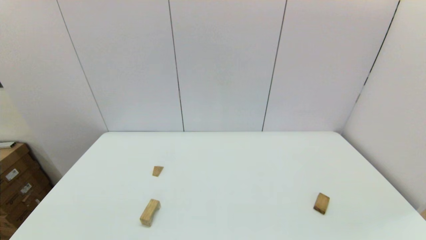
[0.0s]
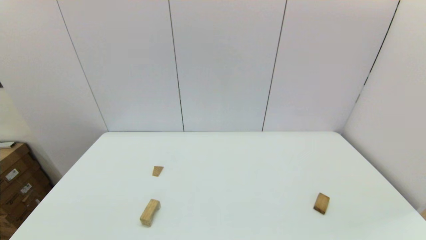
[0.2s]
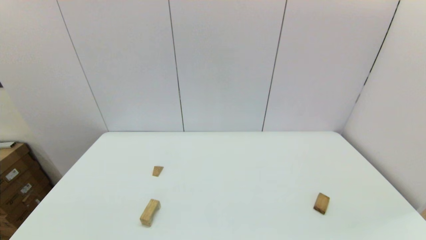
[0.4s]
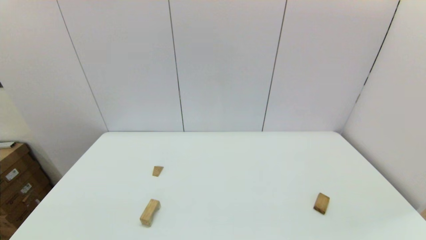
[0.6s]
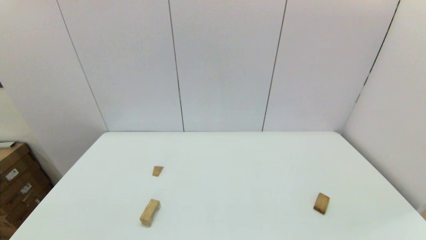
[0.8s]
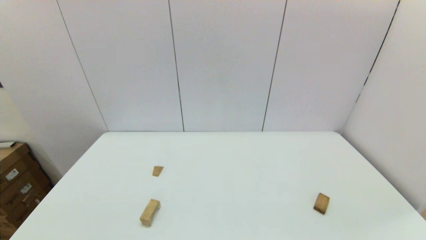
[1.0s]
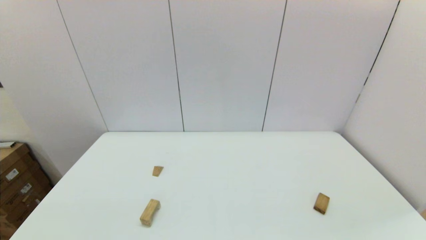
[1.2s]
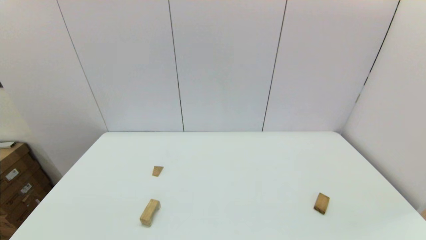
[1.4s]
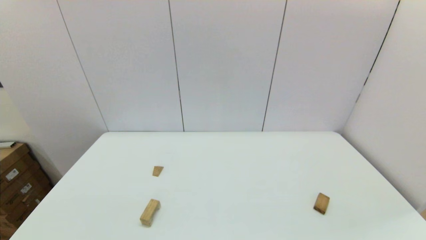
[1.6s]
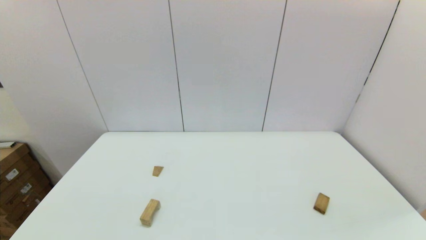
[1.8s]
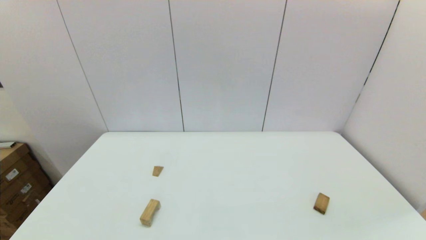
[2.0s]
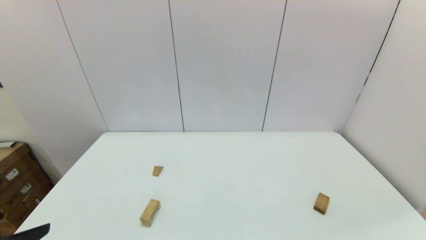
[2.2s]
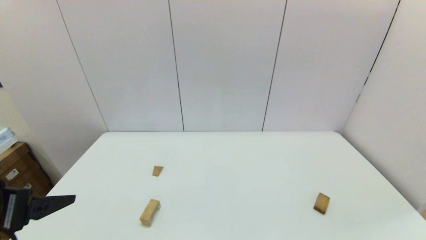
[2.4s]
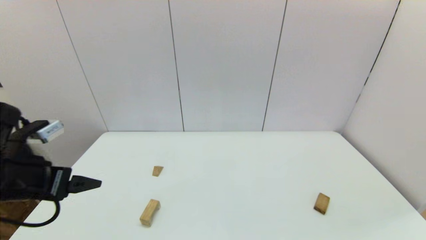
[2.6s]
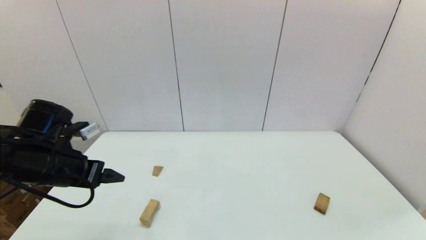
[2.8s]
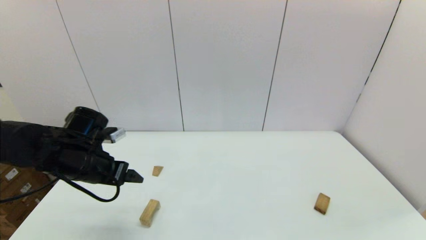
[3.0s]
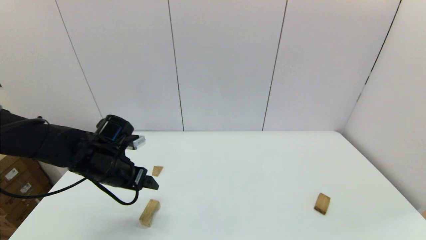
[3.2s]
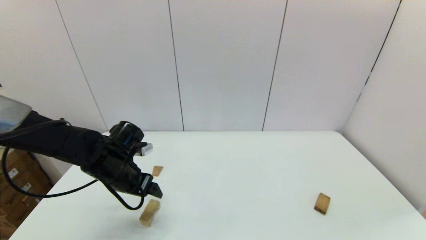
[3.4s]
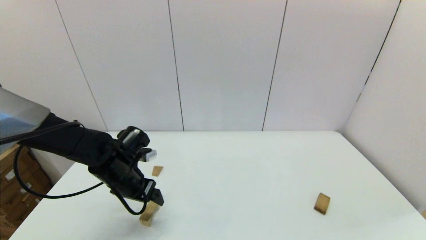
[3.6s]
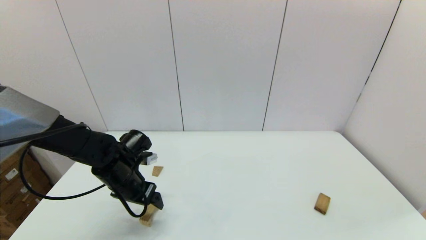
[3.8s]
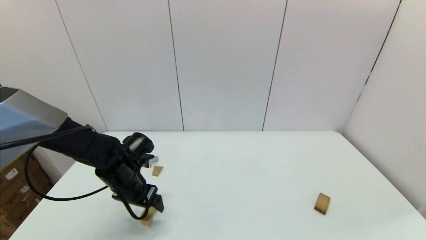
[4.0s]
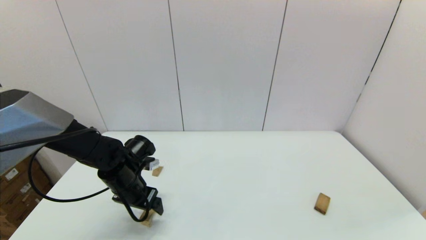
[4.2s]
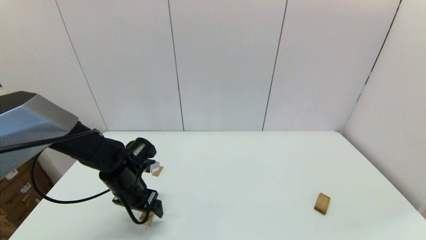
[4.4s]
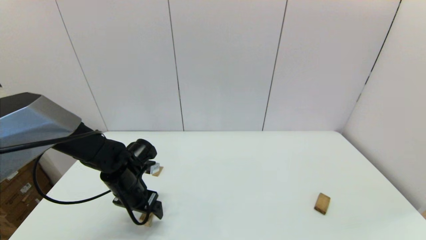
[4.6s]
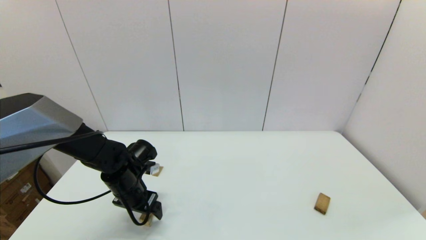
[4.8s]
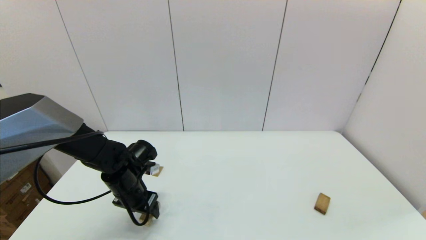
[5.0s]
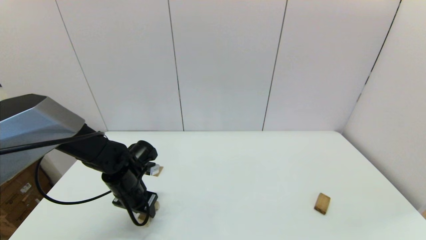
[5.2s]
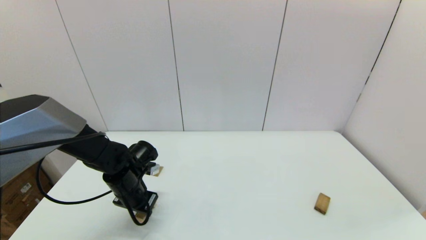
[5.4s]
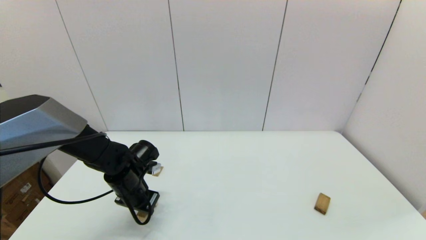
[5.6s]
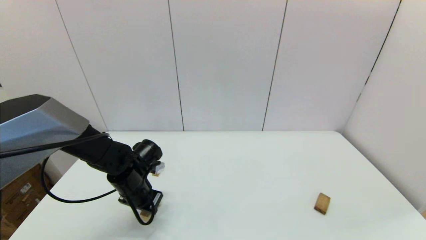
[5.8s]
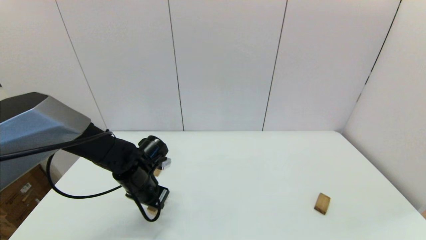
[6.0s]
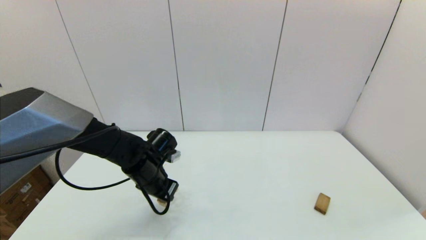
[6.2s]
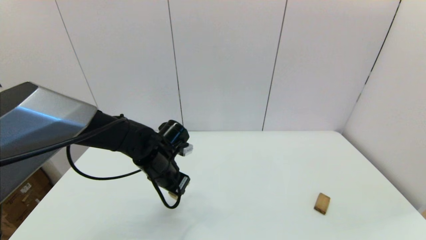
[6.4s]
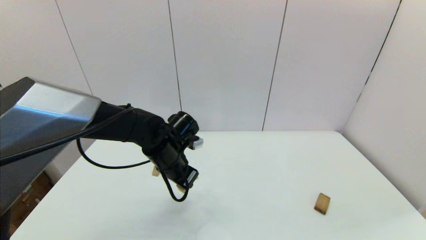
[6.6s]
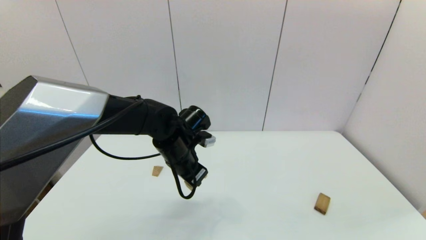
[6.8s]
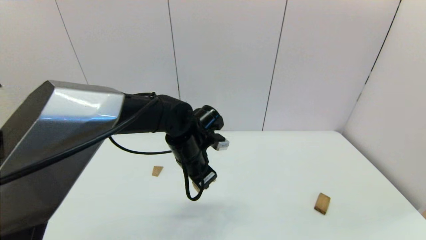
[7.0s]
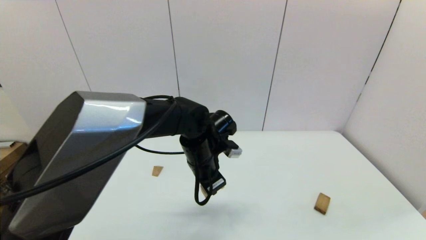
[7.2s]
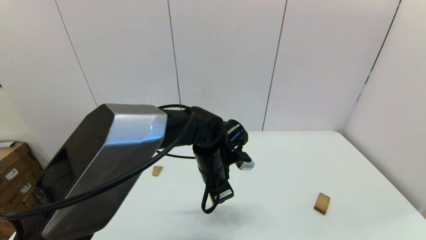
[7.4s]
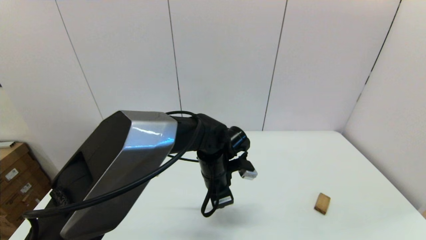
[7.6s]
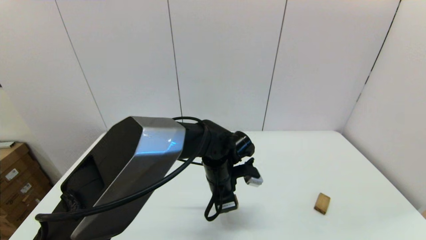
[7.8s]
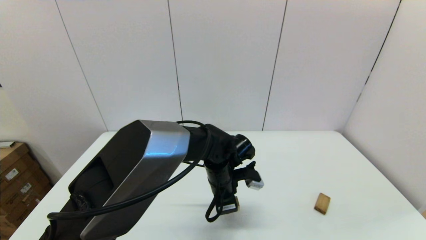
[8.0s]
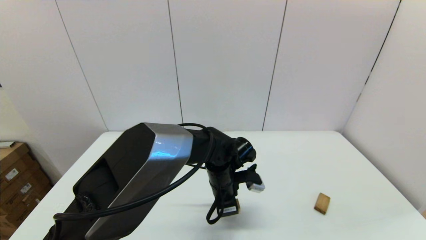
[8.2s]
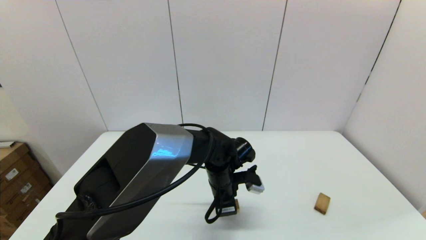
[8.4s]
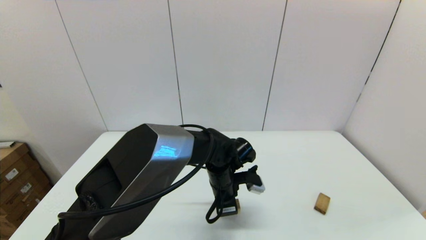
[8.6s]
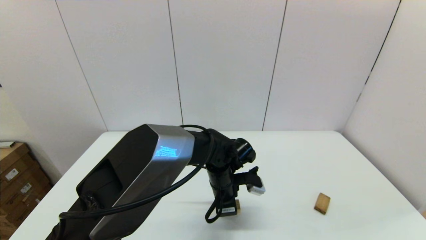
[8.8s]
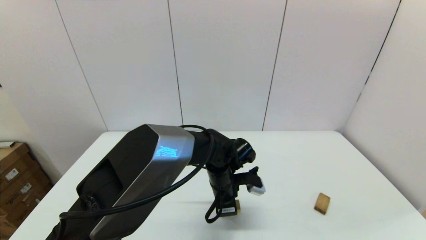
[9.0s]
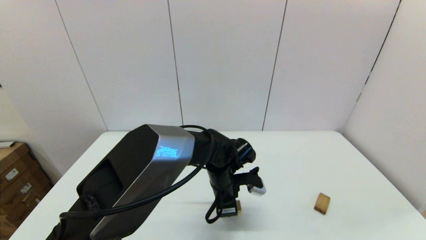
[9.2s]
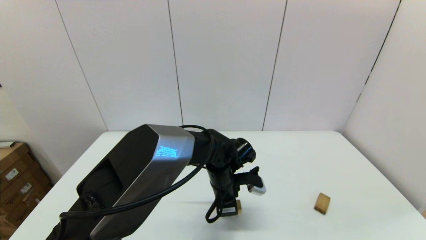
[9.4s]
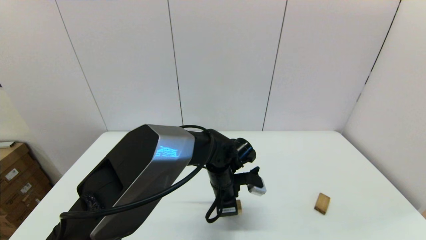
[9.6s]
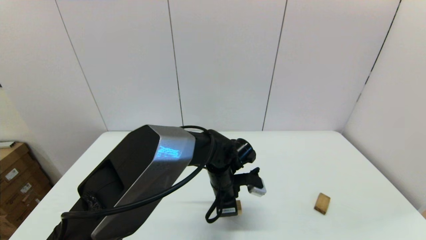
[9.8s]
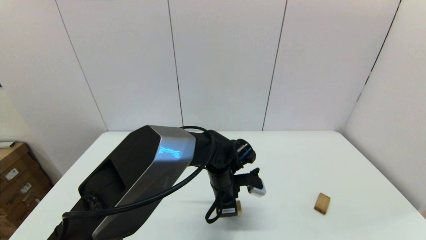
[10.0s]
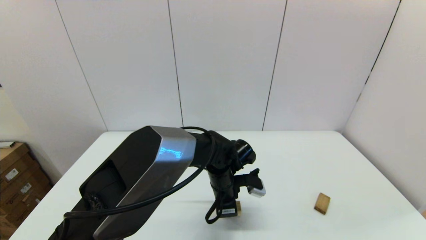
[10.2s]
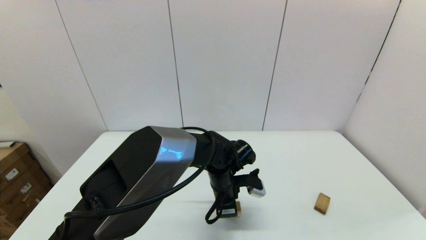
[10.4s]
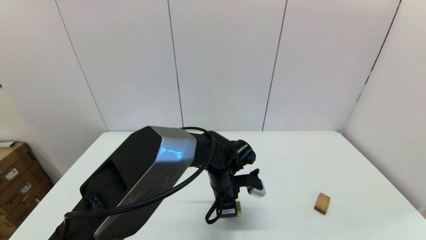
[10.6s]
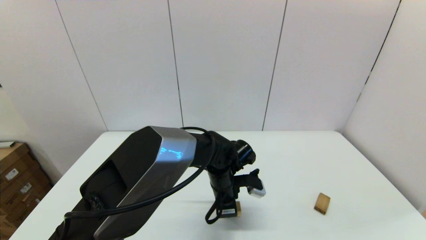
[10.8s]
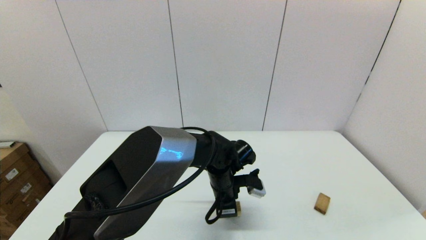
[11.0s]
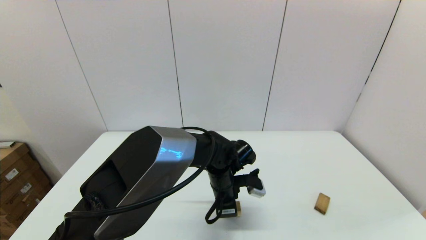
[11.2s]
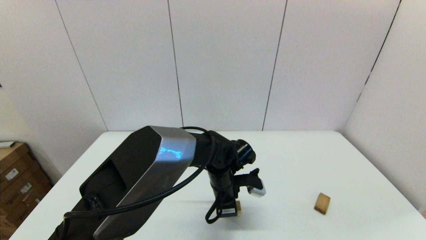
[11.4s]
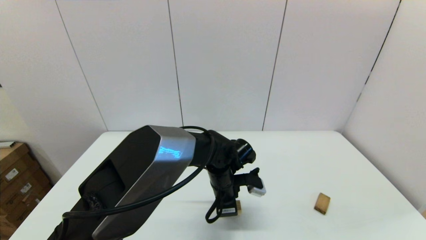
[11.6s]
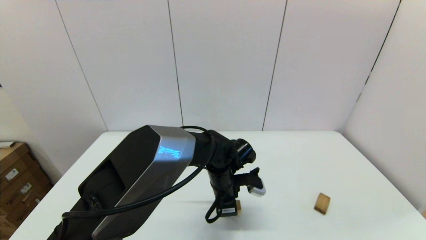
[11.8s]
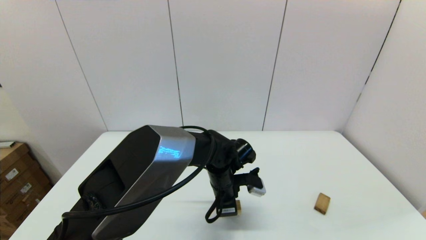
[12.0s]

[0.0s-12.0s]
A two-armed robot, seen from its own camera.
Task of the whole recording: place the arched building blocks in the center of the table, set up the rectangular building blocks, and then set up the triangular building blocks.
Step, 2.2s to 5.2s: Grasp the arch-shaped block with the left gripper.
1.6s to 3.0s: The left gripper is displaced forward by about 30 cm.
3.0s to 4.4s: The left gripper moves downward and to the right, roughly 10 cm.
4.4s to 6.0s: The left gripper closes its fingers.
6.0s to 7.6s: The left gripper moves to the right, some 20 cm.
7.6s to 9.0s: The grippers make only small movements.
9.0s to 12.0s: Both grippers stay about where they are.

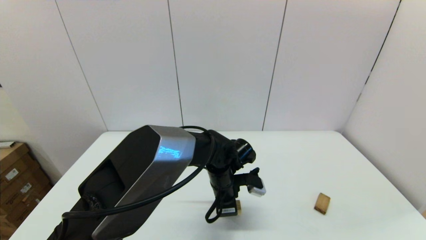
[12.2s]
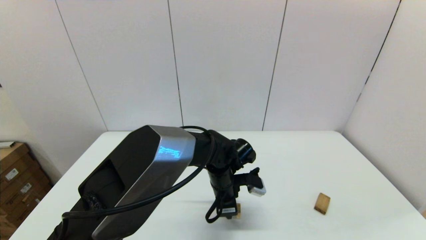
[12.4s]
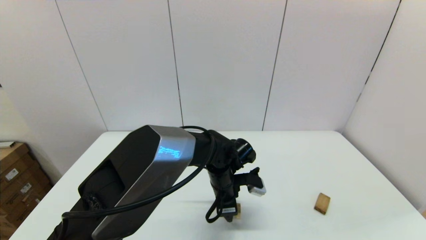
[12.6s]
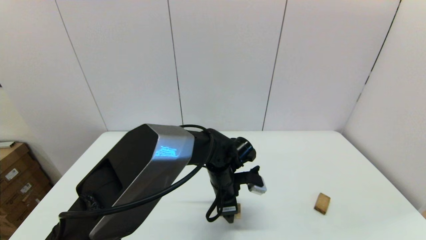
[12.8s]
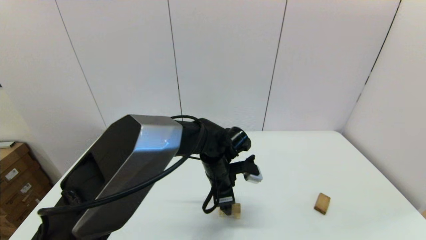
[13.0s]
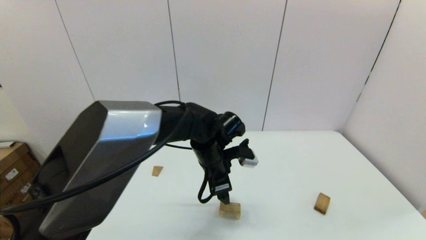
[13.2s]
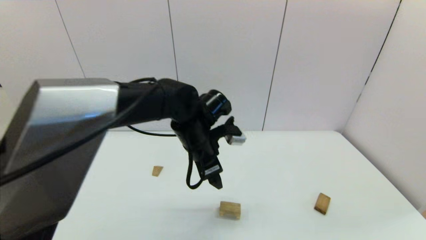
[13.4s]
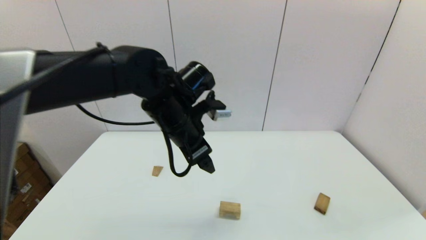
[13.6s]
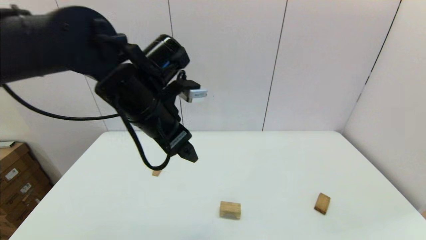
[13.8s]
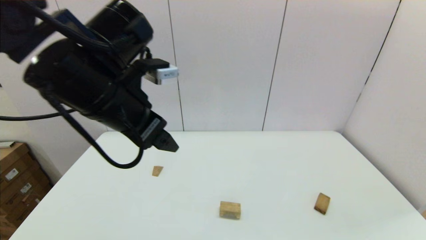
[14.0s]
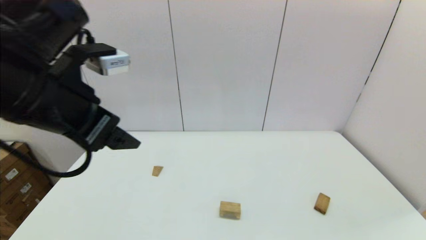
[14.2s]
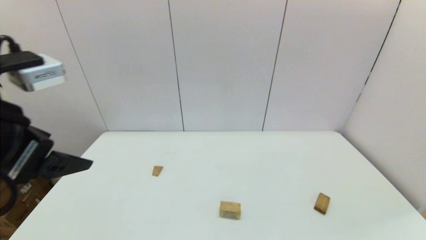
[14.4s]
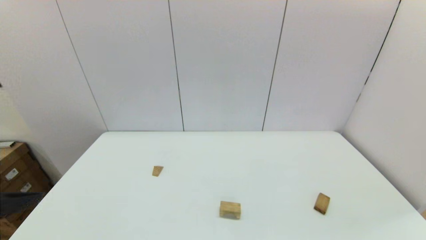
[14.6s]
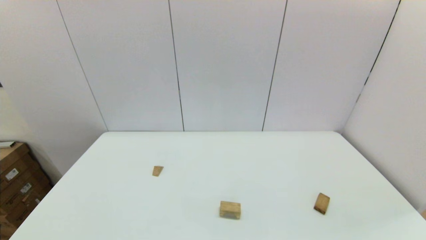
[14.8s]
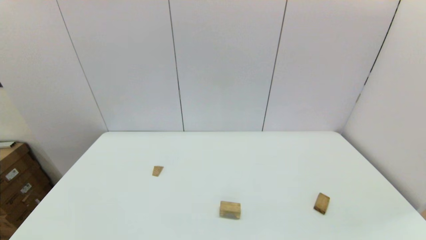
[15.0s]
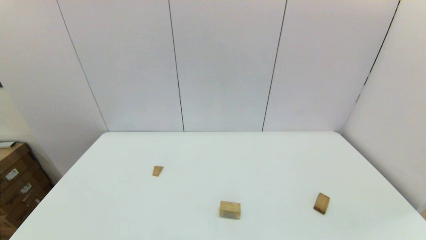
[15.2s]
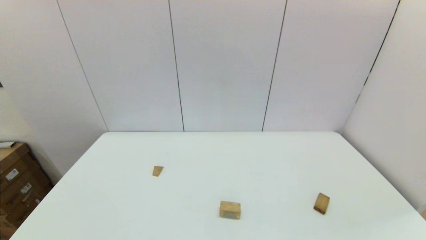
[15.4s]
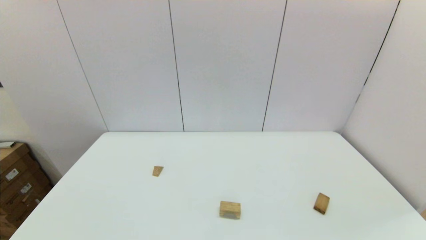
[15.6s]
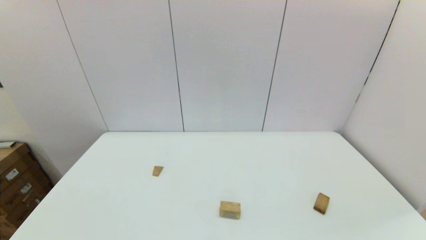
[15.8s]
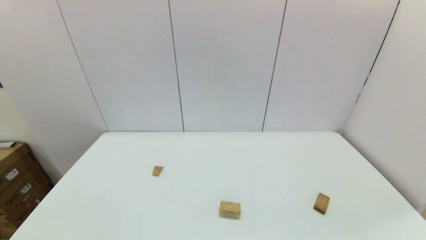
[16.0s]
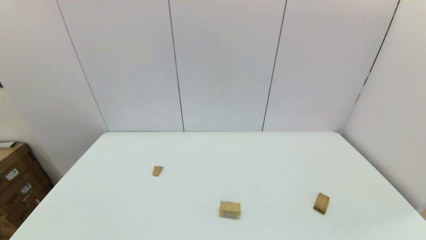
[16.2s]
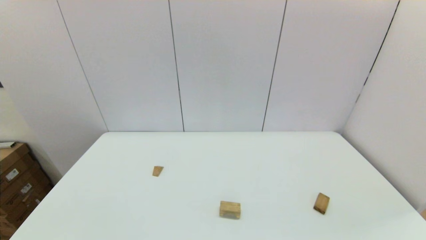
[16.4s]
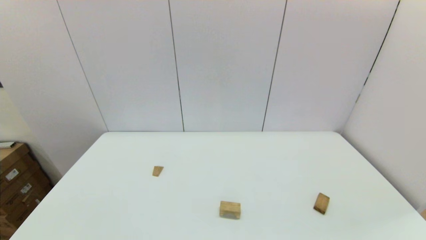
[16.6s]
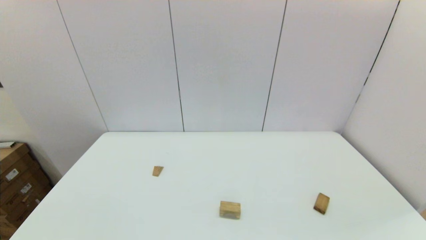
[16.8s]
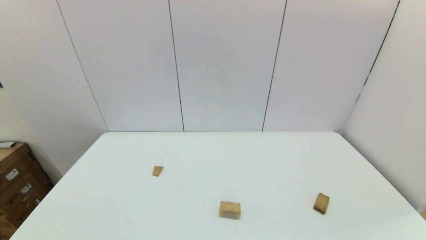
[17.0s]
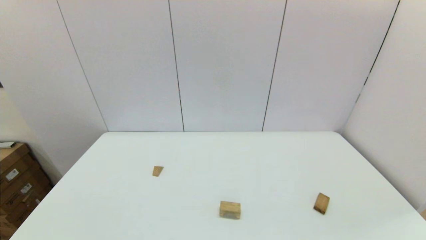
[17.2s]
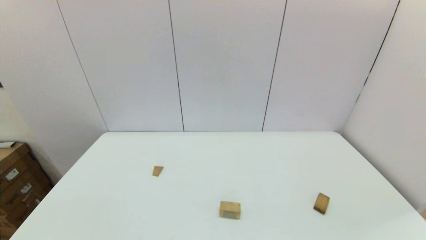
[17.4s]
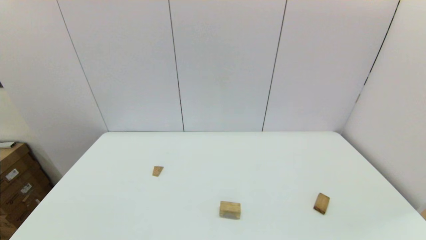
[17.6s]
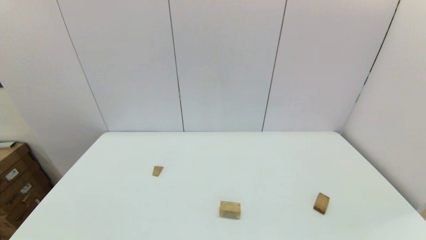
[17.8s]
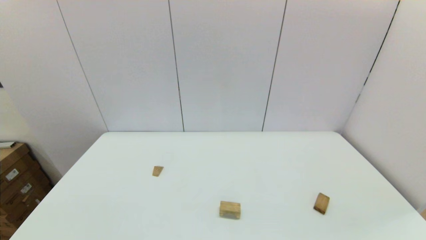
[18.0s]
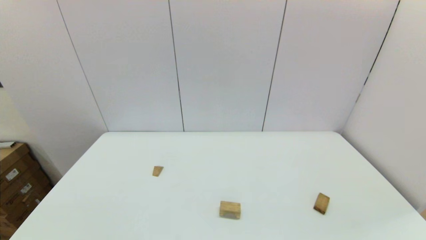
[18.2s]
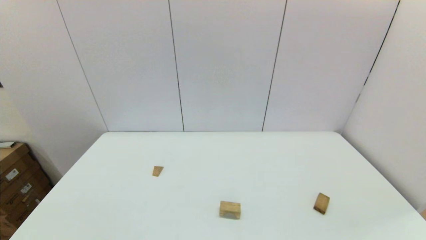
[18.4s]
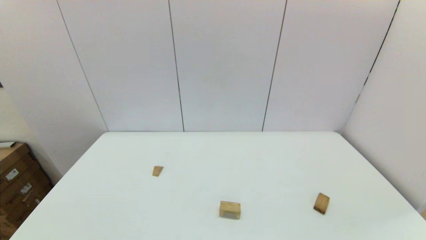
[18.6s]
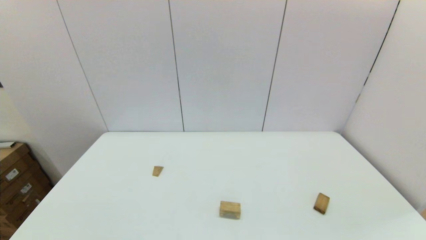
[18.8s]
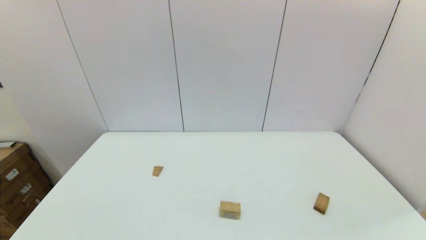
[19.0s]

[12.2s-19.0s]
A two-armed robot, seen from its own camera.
Task of the whole recording: place the arched building blocks in the center of the table, set up the rectangular building blocks, and then set up the triangular building blocks.
12.2s to 13.6s: The left gripper goes about 20 cm upward and to the left, and opens up.
13.6s to 15.0s: The left gripper heads backward and to the left, covering some 40 cm.
